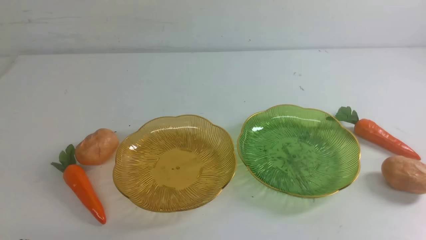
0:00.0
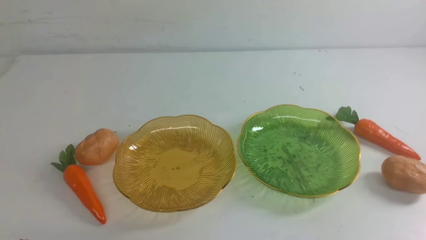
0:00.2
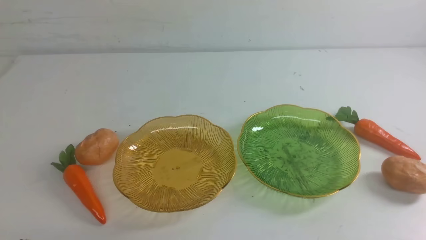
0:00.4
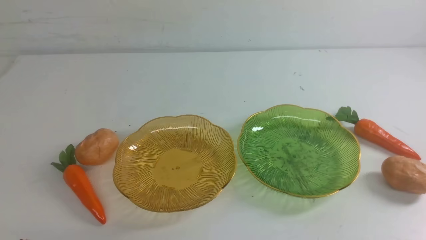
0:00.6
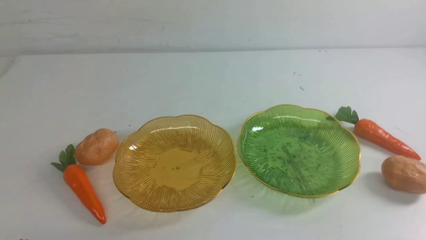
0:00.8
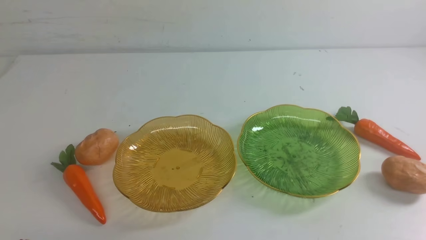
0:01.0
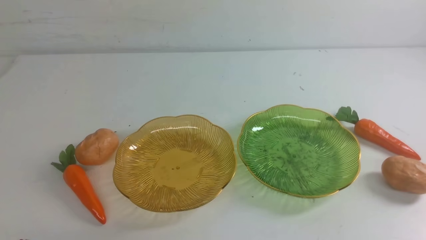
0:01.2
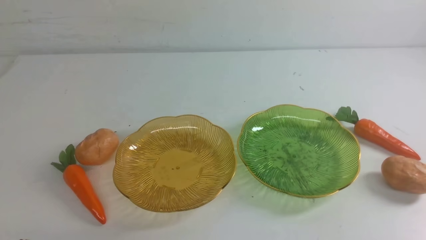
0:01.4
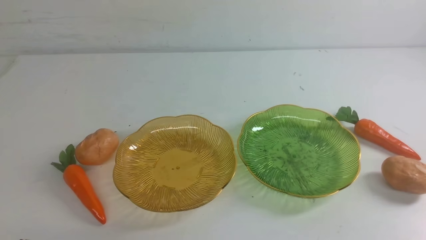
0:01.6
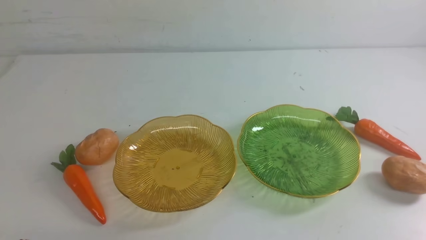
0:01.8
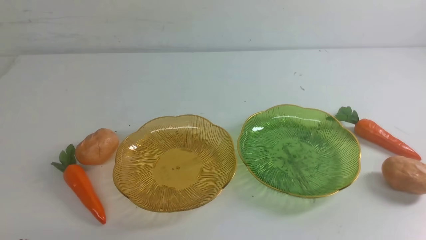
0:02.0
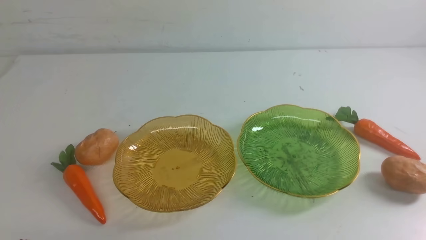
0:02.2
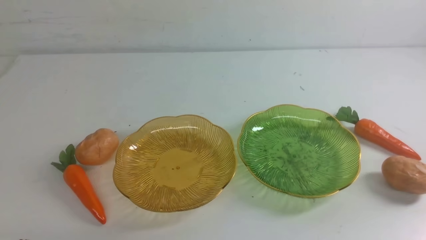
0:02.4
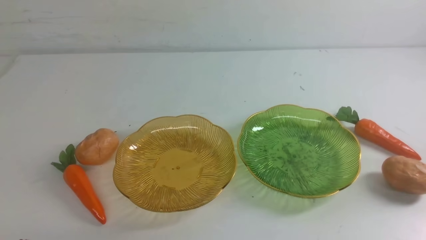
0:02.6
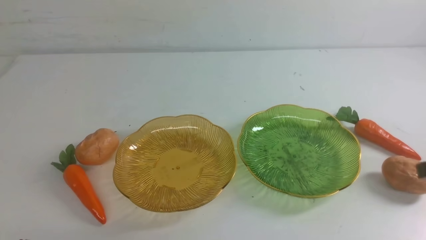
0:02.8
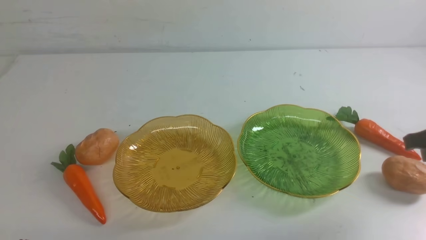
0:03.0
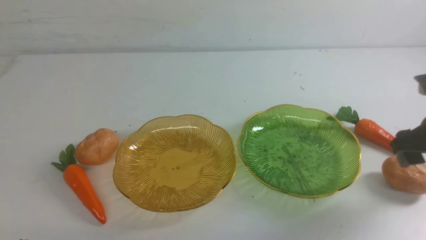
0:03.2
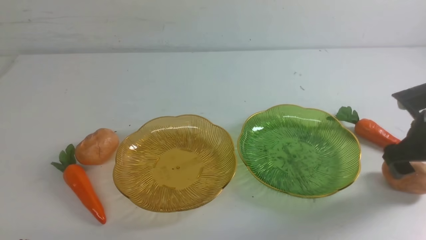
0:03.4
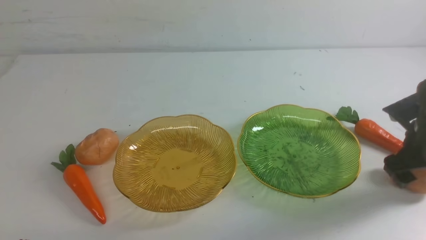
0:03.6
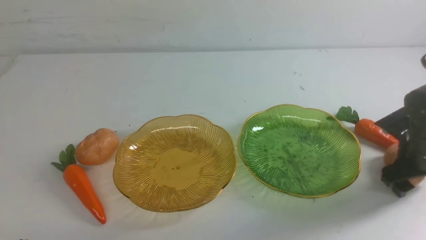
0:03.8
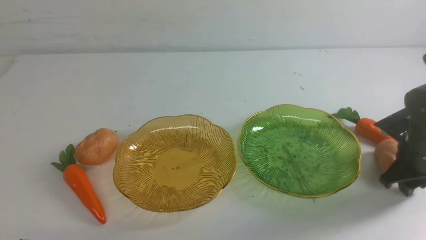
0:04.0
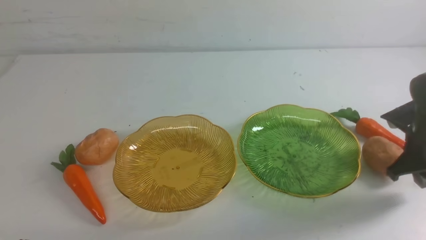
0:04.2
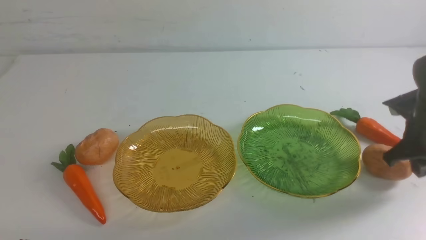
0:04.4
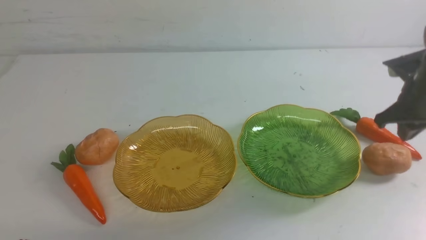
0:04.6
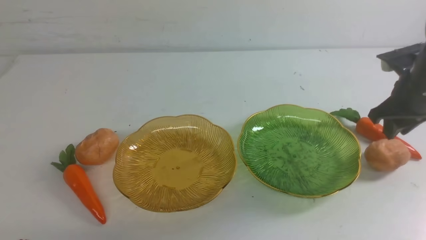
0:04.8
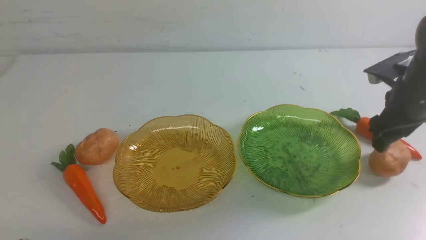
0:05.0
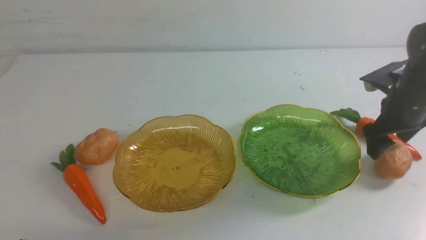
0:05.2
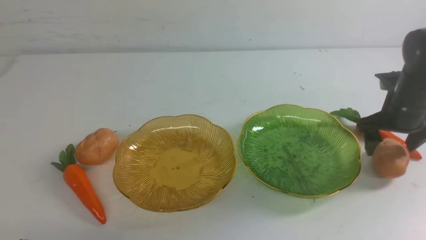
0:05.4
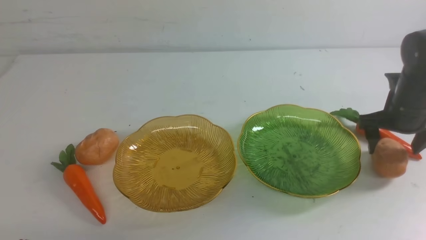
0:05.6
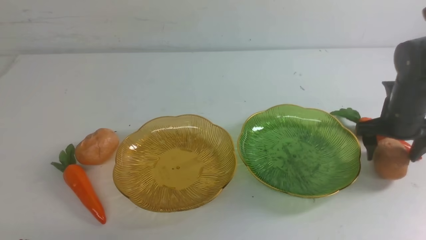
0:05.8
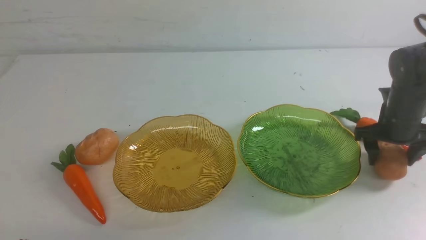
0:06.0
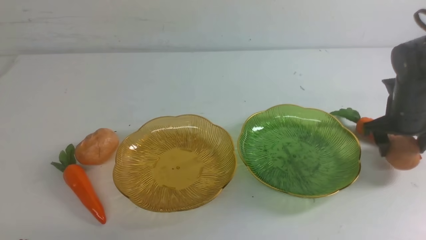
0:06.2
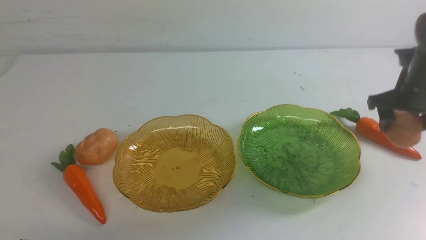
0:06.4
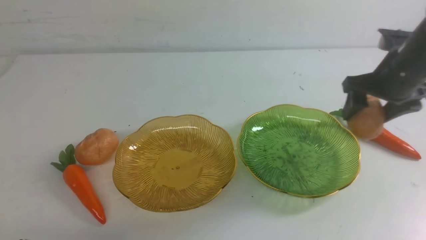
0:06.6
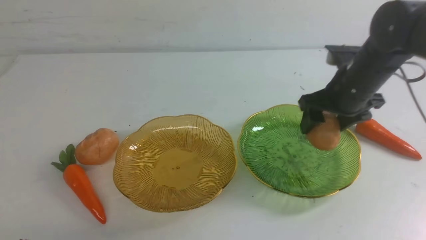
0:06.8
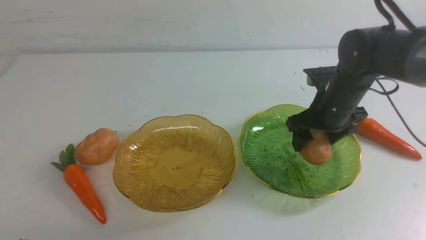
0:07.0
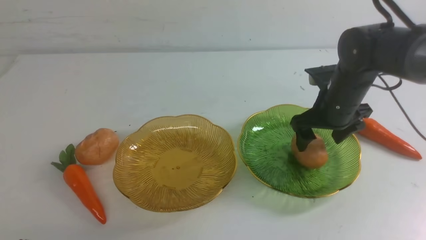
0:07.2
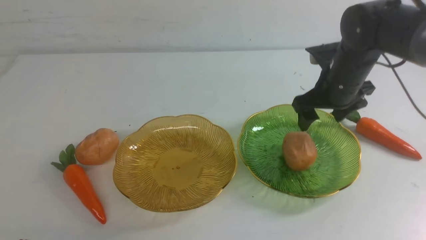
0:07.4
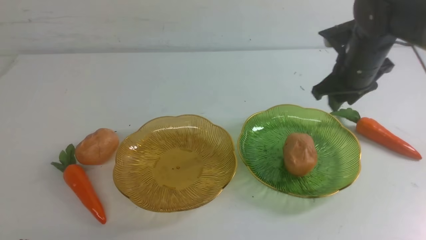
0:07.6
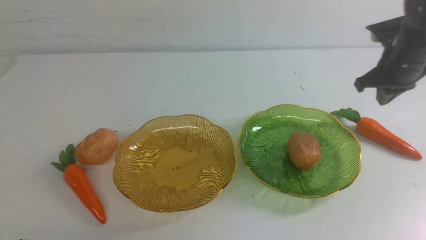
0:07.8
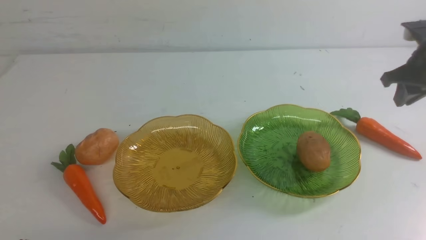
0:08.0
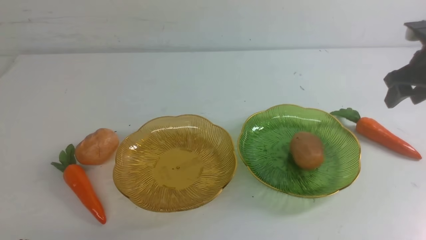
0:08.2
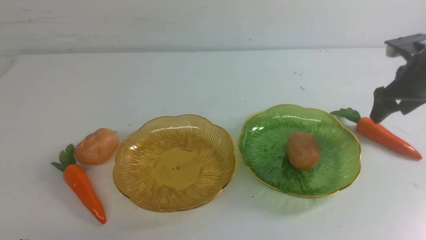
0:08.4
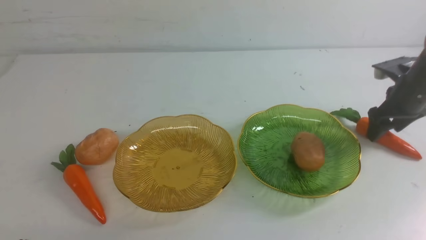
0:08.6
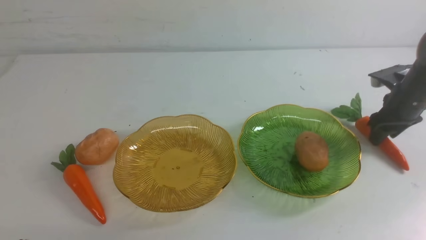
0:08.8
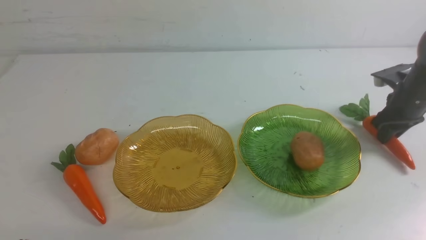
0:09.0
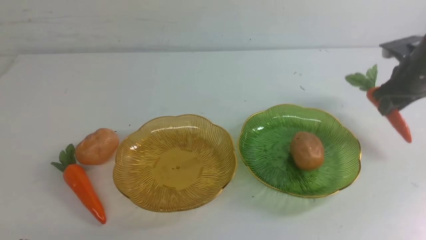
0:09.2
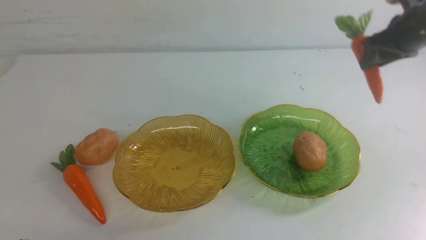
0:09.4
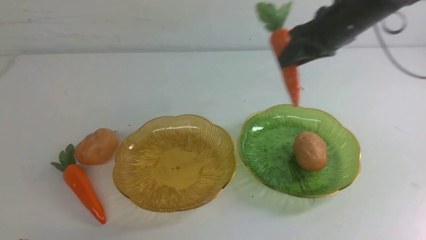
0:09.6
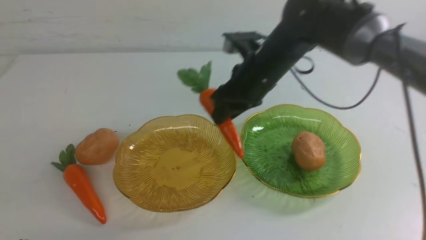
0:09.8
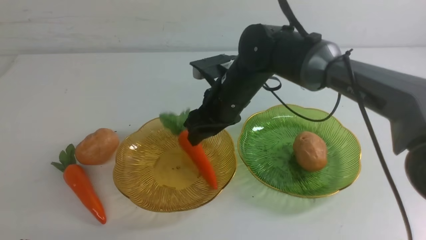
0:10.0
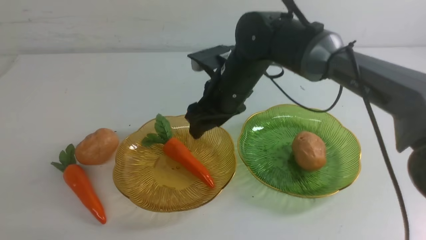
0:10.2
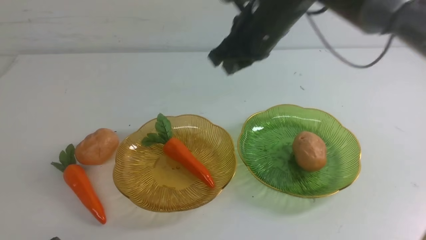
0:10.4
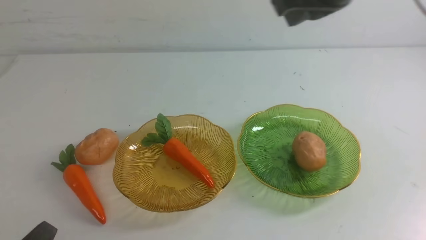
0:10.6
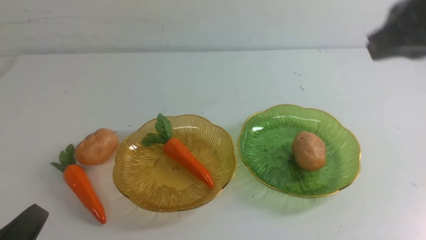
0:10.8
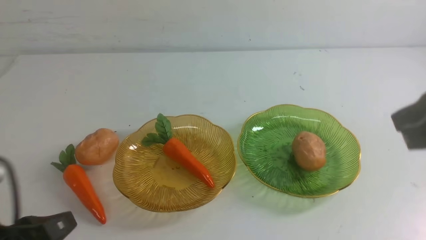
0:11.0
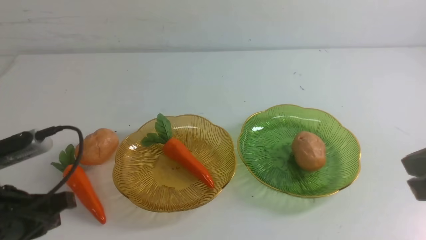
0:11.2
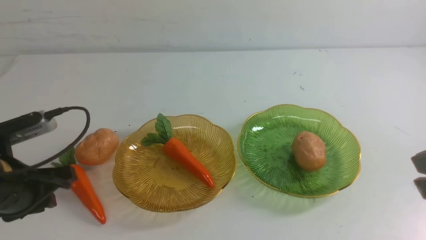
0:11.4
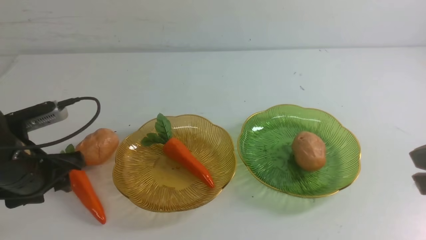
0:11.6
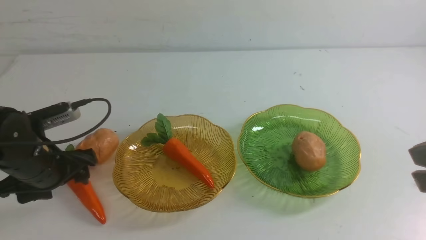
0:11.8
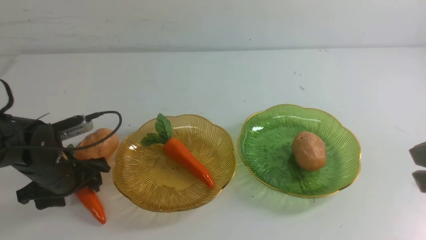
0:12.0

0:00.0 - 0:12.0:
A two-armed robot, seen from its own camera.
Step, 0:00.0 - 0:07.4: Grab a potato with your right arm and put it on the right plate.
Step, 0:07.6 - 0:10.4: use the right arm to grab a carrot and put it into the left plate.
0:01.6 - 0:03.0: The right gripper is displaced forward by some 20 cm, and opens its fingers.
0:03.0 - 0:04.4: The right gripper travels forward and downward by approximately 10 cm, and closes.
0:04.4 - 0:06.0: The right gripper shifts by about 5 cm, and opens up.
0:06.0 - 0:07.6: The right gripper moves to the left and upward, approximately 10 cm, and closes its fingers.
0:07.6 - 0:09.0: The right gripper heads to the right and downward, covering approximately 15 cm.
0:09.0 - 0:10.4: The right gripper goes about 35 cm to the left and upward.
0:10.4 - 0:12.0: The left gripper is displaced forward by approximately 25 cm, and opens its fingers, while the right gripper is displaced backward and to the right by some 30 cm.

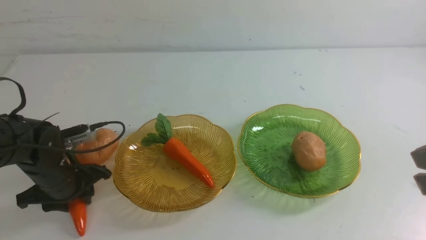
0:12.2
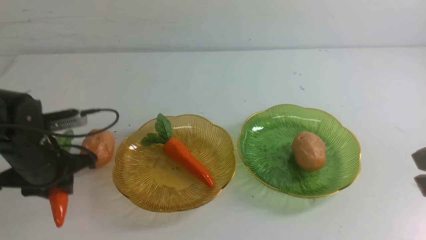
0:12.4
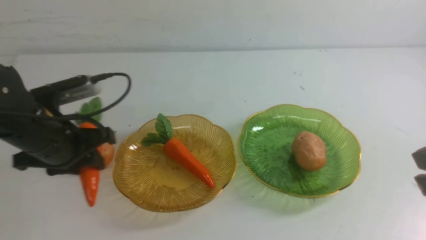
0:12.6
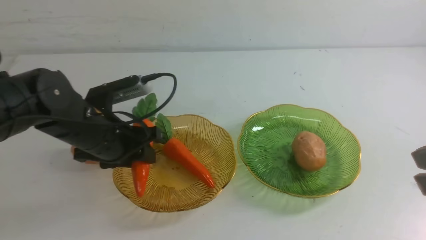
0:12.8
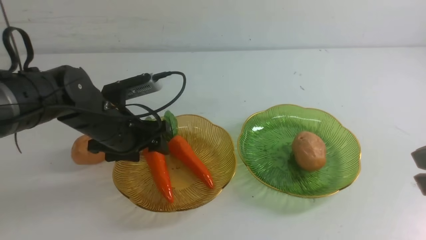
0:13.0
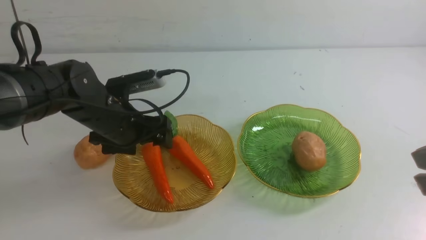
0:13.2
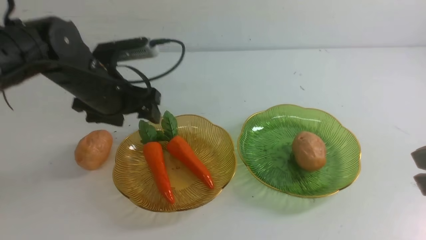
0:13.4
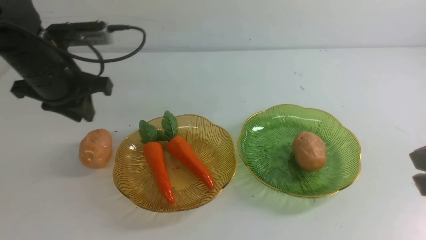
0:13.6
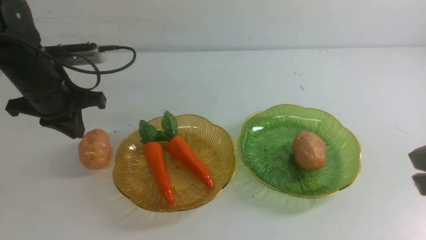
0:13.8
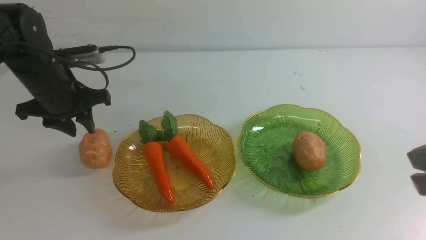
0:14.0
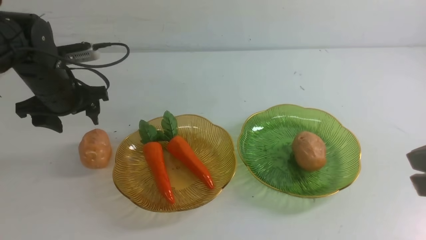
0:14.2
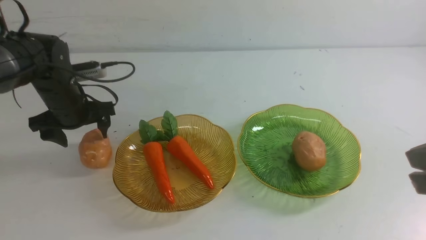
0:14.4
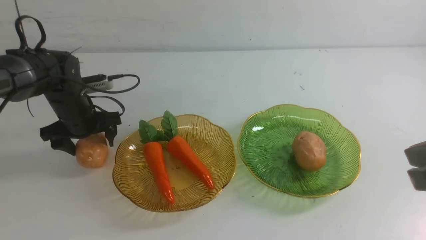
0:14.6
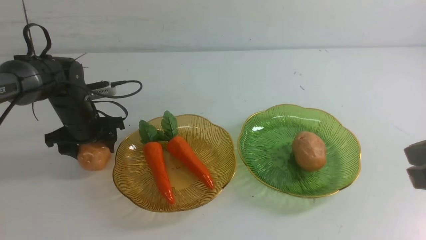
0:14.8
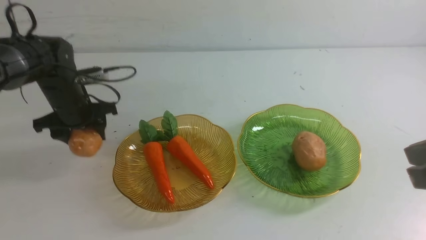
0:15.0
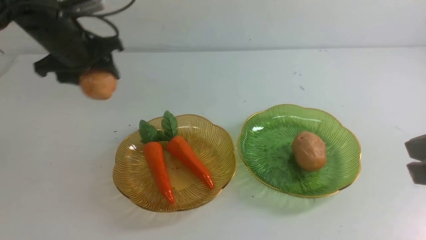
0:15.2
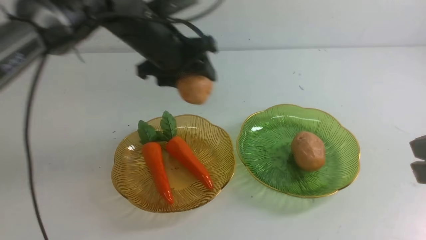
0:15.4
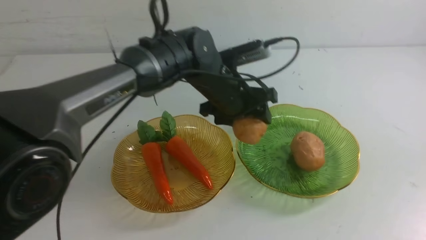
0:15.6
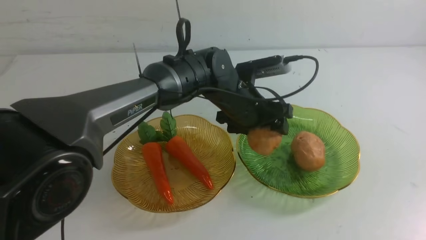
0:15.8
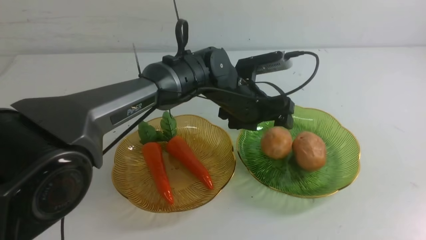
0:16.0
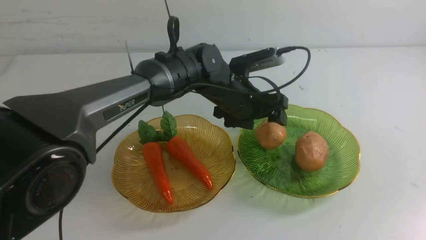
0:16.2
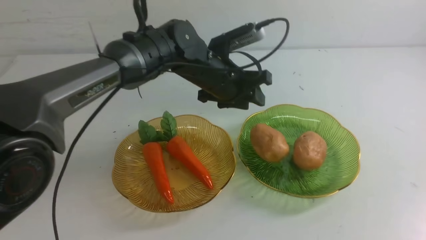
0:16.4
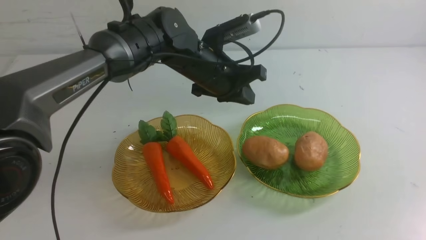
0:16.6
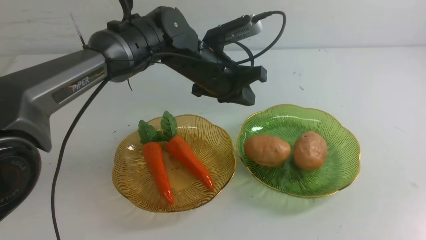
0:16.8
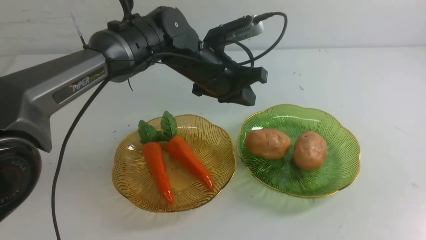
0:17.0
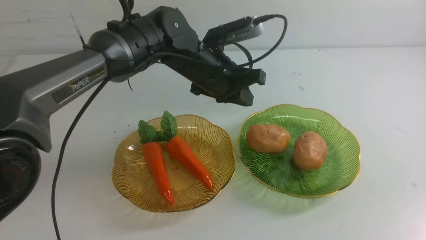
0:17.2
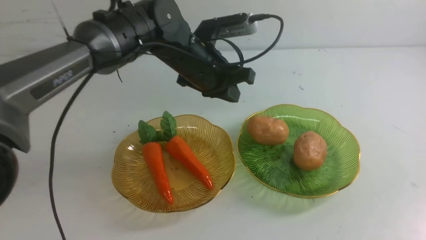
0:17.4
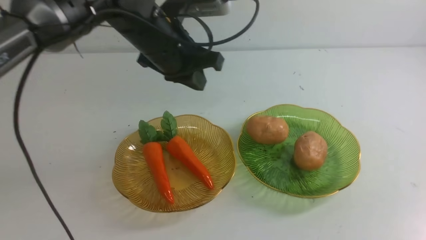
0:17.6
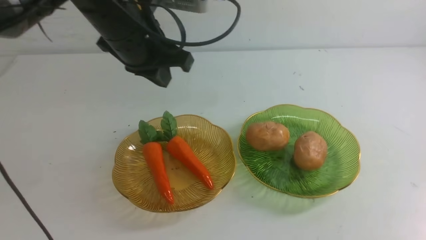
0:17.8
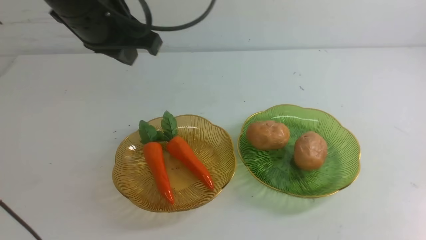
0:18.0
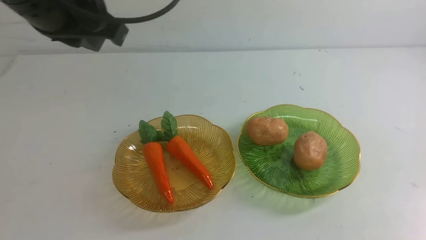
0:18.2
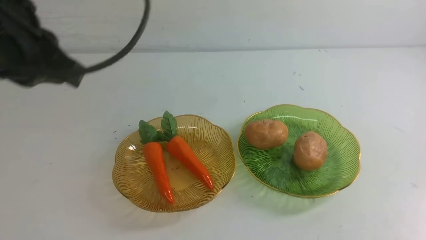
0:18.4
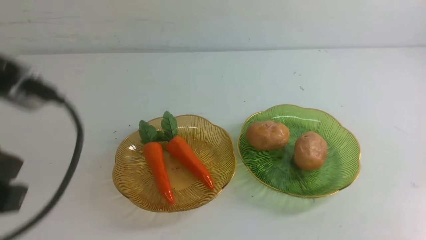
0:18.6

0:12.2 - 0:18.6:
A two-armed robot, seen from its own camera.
Step, 0:13.4 - 0:16.2: Grab a potato with your left arm and put it on the right plate.
0:12.2 - 0:13.8: The left gripper heads upward and forward, covering about 15 cm, and closes its fingers.
0:13.8 - 0:15.4: The left gripper heads to the right and forward, covering approximately 15 cm, and opens up.
0:15.4 - 0:17.0: The right gripper travels backward by approximately 15 cm; the left gripper heads to the right, covering roughly 10 cm, and closes its fingers.
0:17.0 - 0:18.6: The left gripper is displaced backward, to the left and upward by some 35 cm. The right gripper moves downward, roughly 15 cm.
